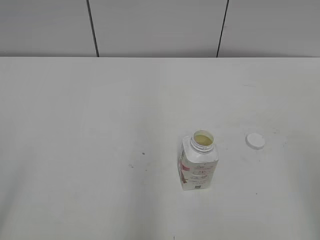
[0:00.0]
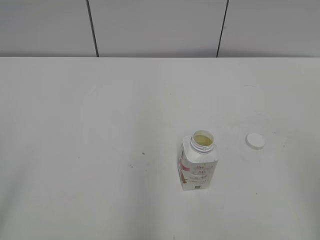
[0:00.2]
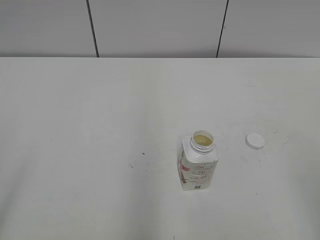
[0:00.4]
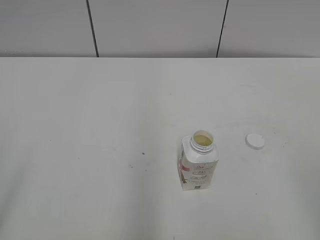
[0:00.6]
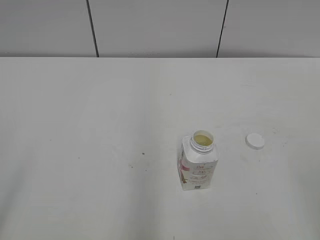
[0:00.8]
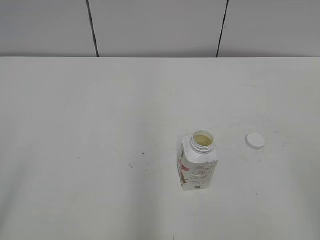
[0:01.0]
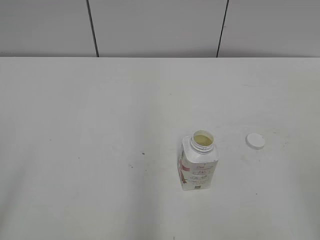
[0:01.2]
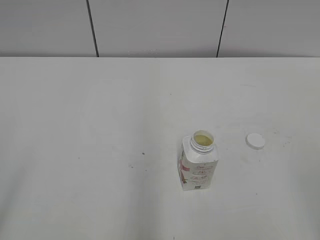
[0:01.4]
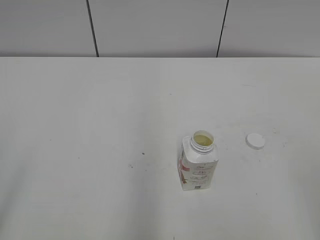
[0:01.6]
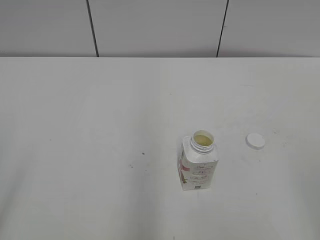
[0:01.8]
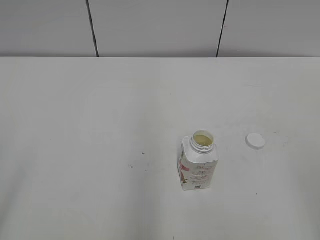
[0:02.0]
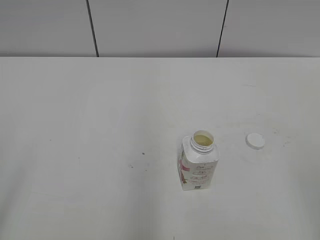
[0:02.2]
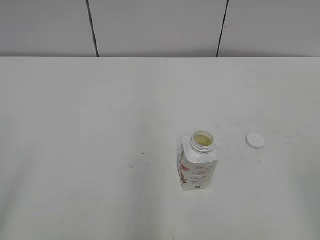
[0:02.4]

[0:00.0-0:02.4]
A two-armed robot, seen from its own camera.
0:01.2 to 0:02.4: Both grippers stay about where they are.

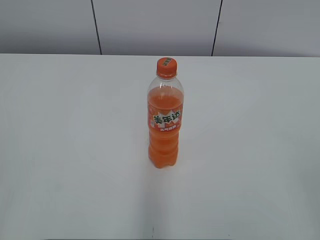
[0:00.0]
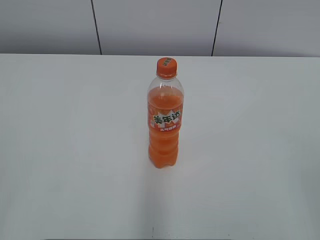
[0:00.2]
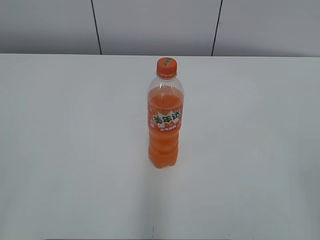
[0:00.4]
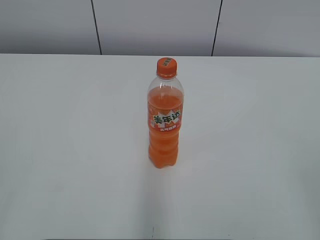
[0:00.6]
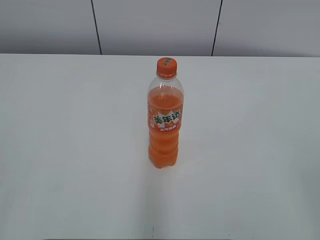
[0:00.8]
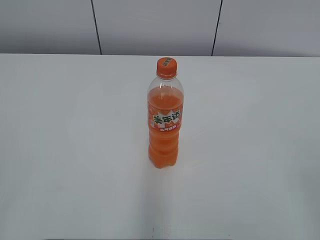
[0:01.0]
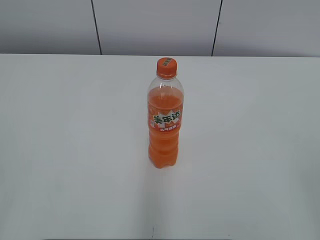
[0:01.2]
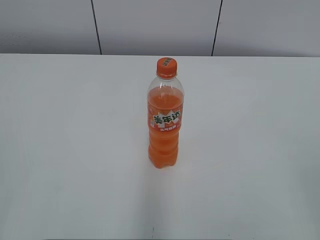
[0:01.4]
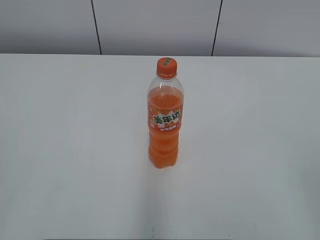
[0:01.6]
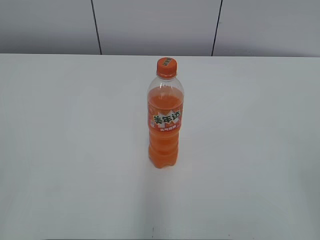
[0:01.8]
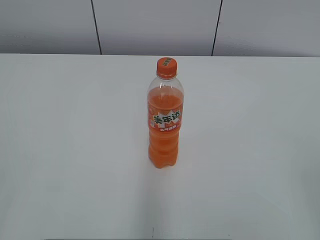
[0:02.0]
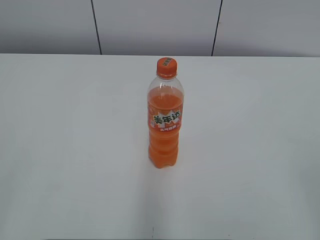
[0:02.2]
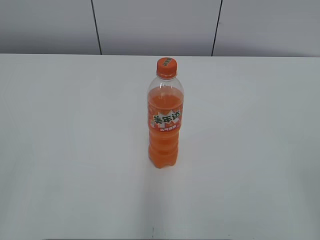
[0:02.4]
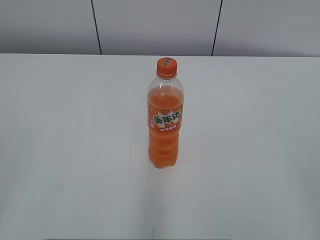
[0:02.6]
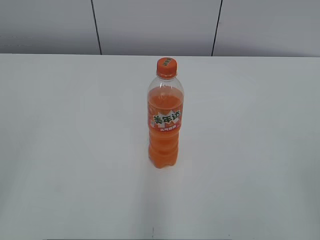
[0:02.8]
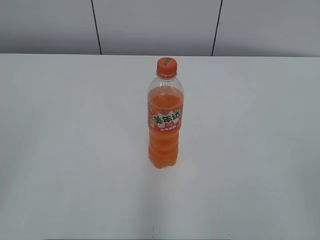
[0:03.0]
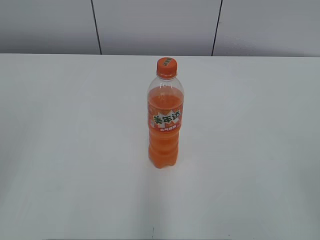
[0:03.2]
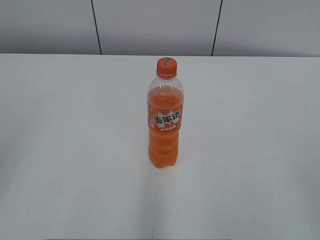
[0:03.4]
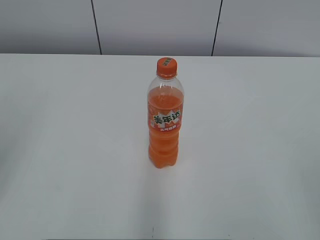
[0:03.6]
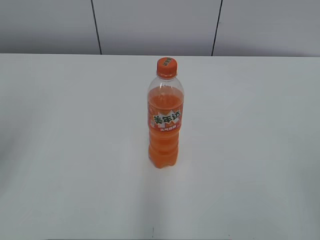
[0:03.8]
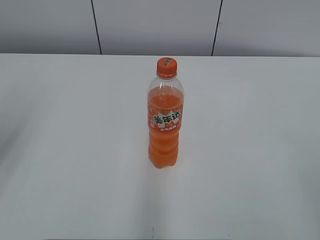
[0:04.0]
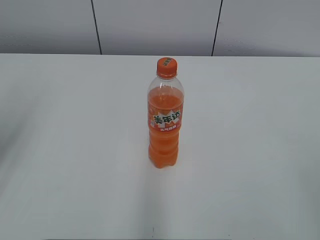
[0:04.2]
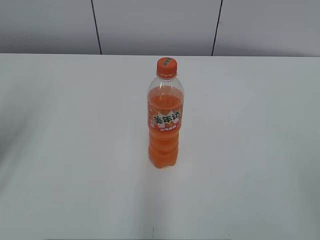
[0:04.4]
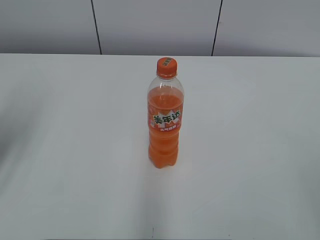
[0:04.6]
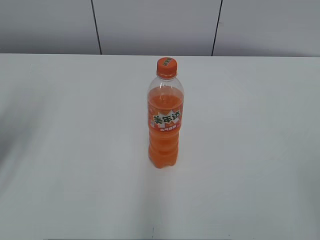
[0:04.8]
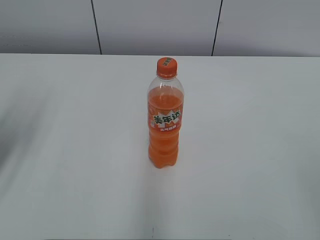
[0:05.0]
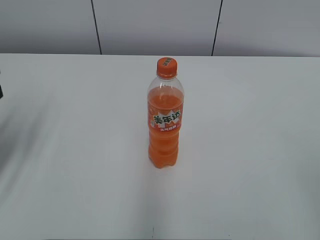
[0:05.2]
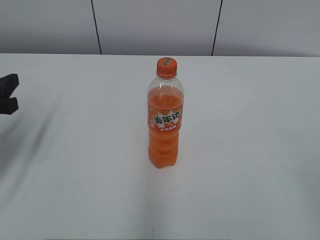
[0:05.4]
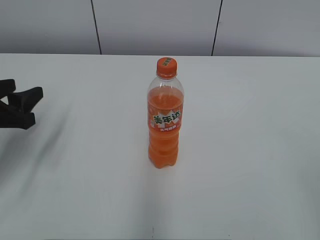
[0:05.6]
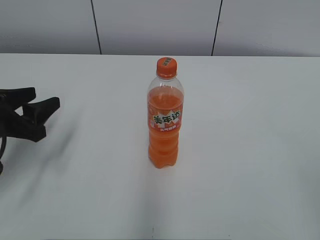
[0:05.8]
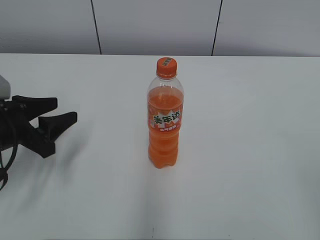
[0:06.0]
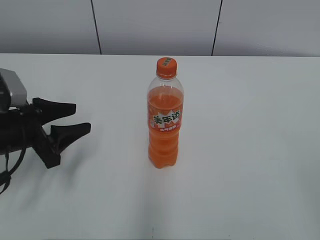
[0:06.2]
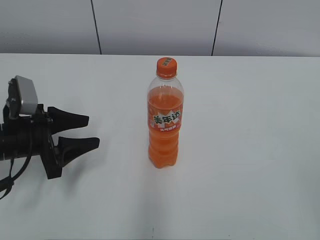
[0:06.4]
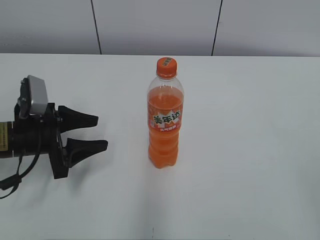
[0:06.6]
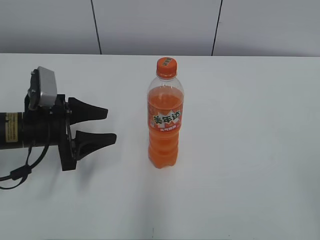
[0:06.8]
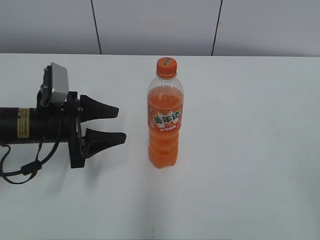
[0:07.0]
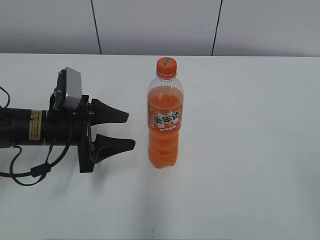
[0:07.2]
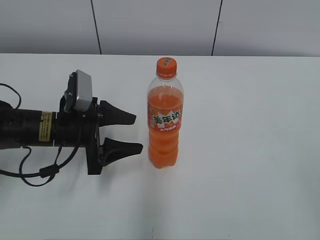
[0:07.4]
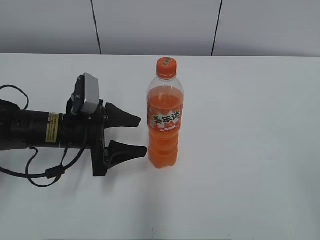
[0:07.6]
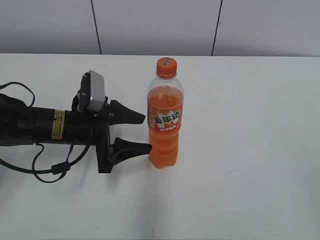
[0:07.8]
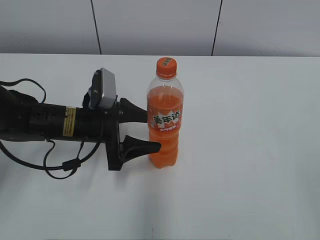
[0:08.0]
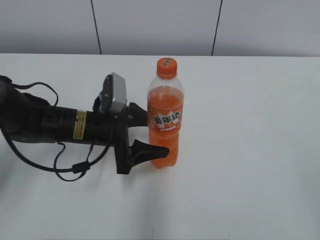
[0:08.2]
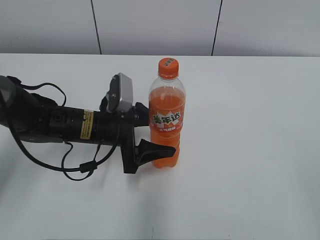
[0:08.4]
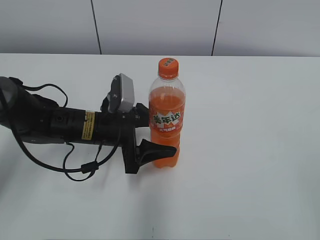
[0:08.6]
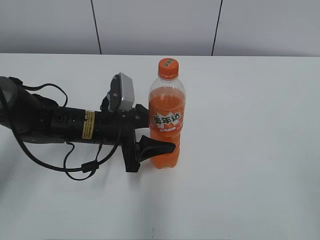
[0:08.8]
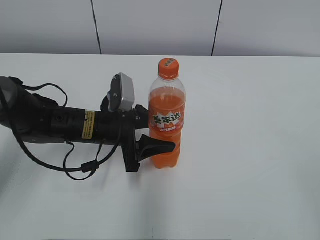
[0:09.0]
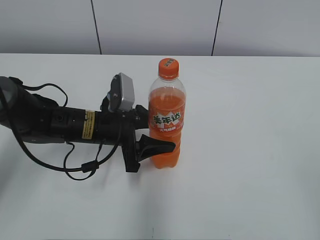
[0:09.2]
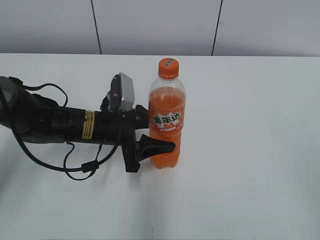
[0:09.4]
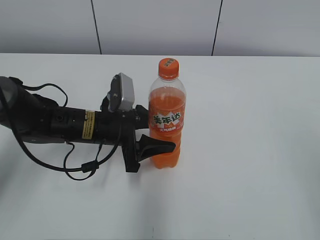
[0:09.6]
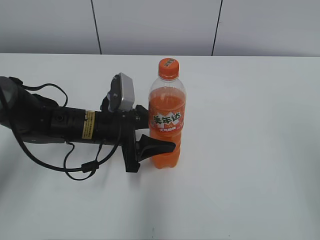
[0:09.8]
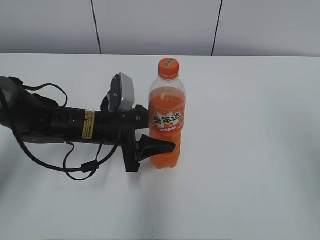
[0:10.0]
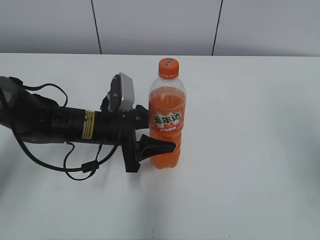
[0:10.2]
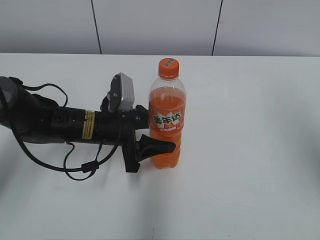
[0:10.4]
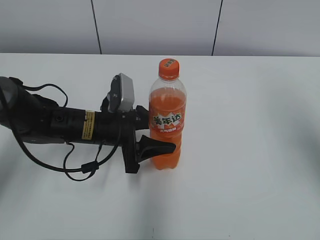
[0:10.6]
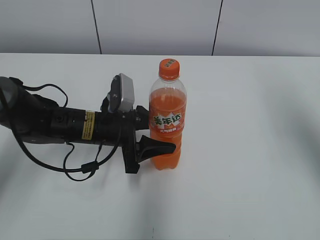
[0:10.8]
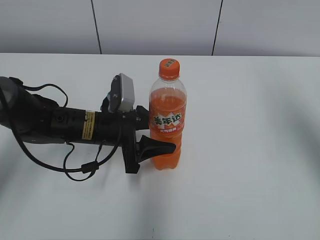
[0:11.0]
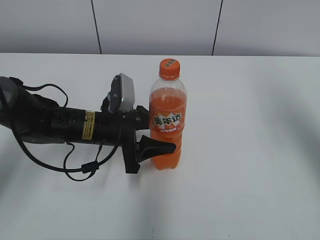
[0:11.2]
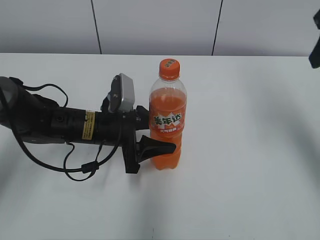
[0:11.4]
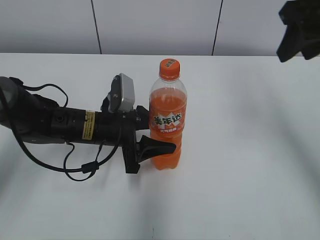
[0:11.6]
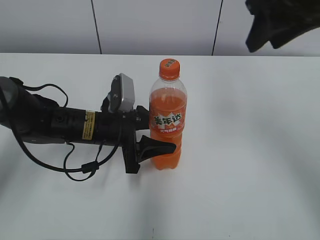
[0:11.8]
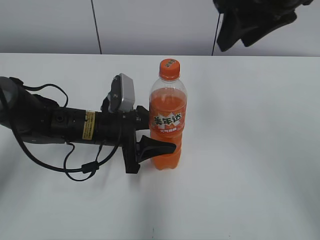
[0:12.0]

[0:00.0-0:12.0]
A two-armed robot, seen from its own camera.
Step, 0:00.0 to 0:09.6: Grab the Mirinda with the left hand.
0:04.4 to 0:06.0: The left gripper shifts roughly 15 cm downward.
0:06.0 to 0:07.6: The left gripper travels to the right by some 10 cm.
0:07.6 to 0:09.0: The left gripper moves to the right, about 5 cm, and closes.
0:09.0 to 0:10.4: The right gripper travels forward by roughly 20 cm.
0:10.4 to 0:12.0: The right gripper moves to the left and forward, approximately 20 cm.

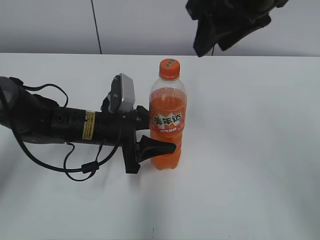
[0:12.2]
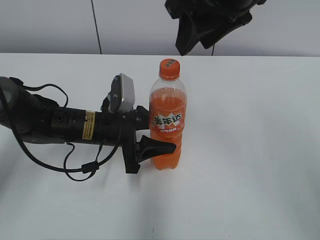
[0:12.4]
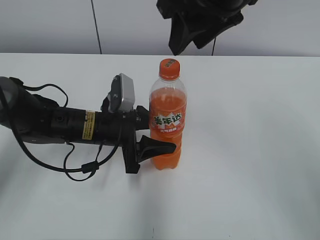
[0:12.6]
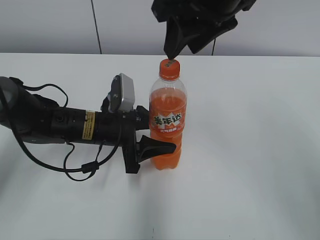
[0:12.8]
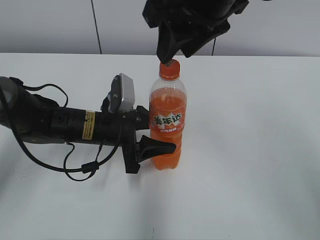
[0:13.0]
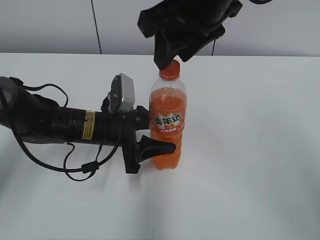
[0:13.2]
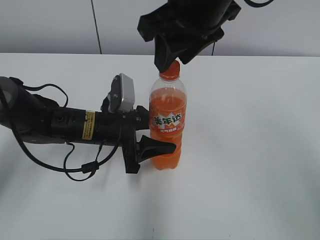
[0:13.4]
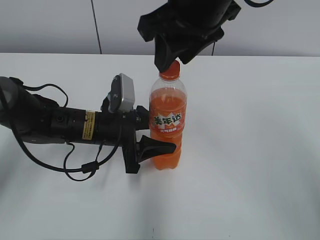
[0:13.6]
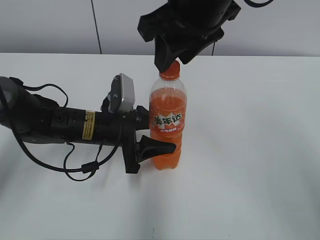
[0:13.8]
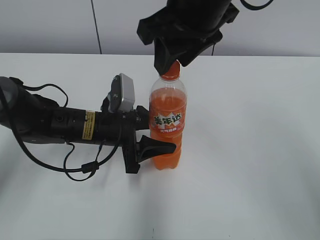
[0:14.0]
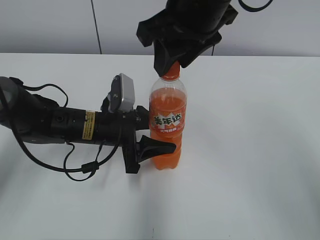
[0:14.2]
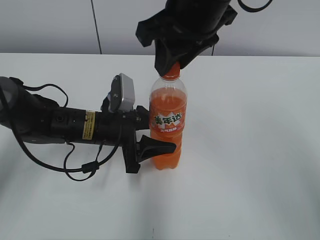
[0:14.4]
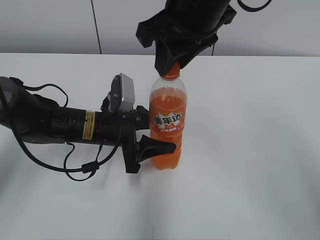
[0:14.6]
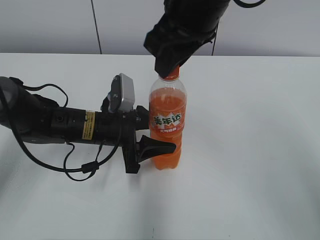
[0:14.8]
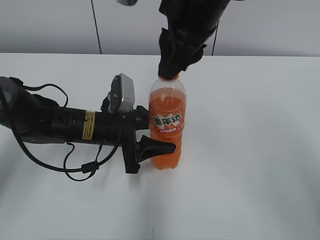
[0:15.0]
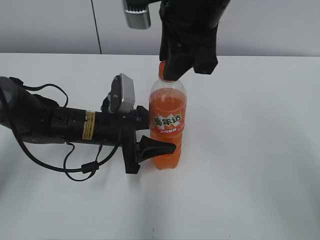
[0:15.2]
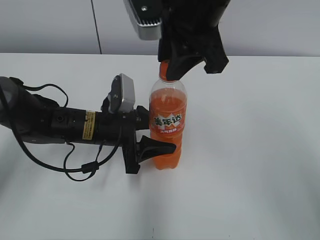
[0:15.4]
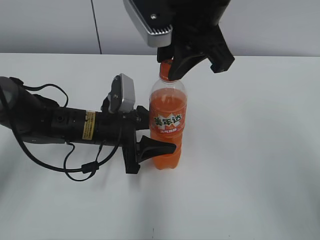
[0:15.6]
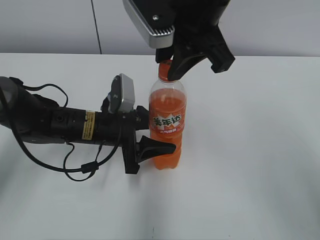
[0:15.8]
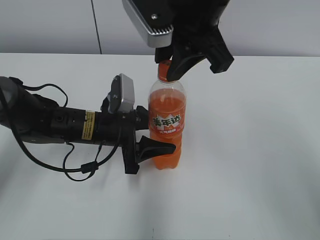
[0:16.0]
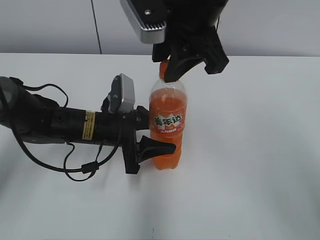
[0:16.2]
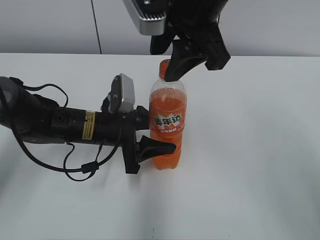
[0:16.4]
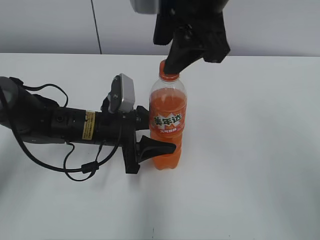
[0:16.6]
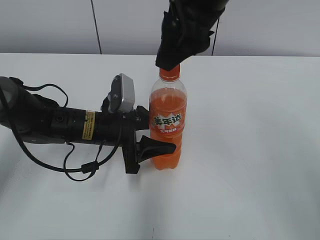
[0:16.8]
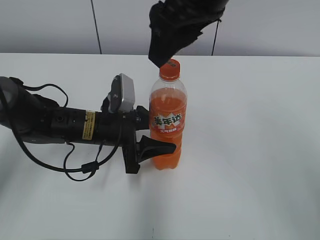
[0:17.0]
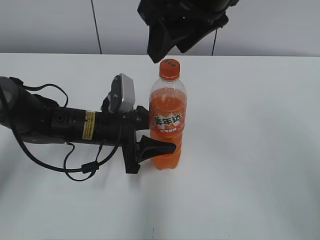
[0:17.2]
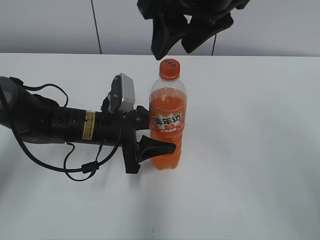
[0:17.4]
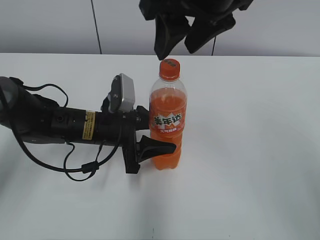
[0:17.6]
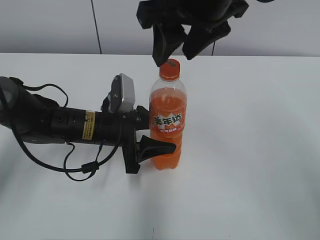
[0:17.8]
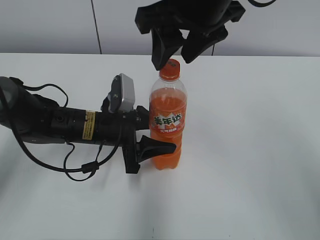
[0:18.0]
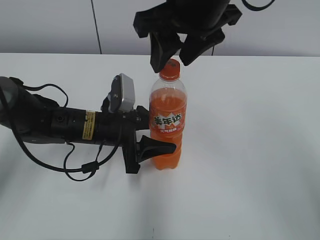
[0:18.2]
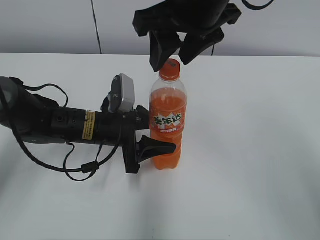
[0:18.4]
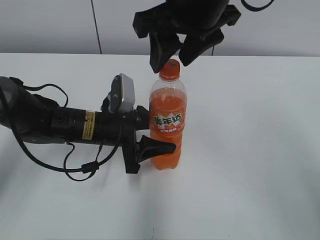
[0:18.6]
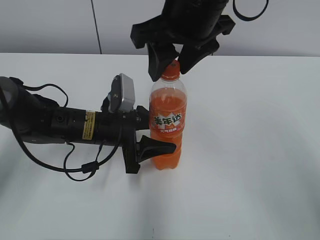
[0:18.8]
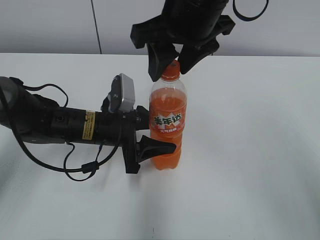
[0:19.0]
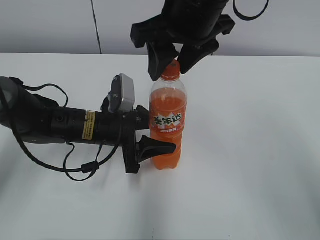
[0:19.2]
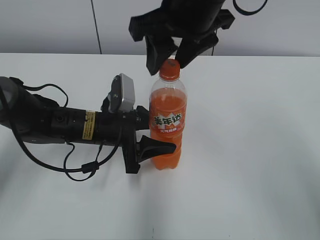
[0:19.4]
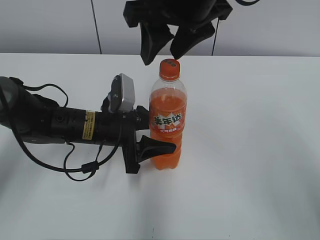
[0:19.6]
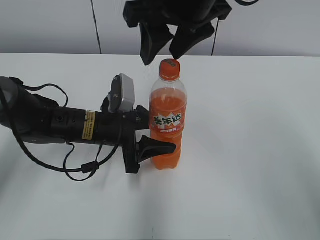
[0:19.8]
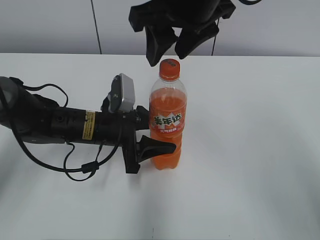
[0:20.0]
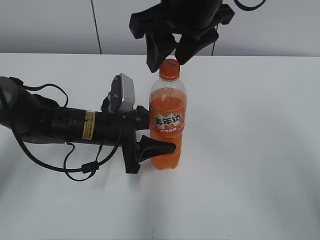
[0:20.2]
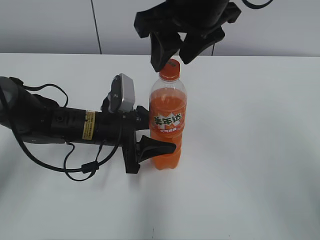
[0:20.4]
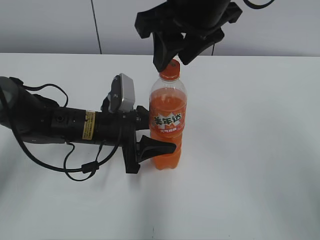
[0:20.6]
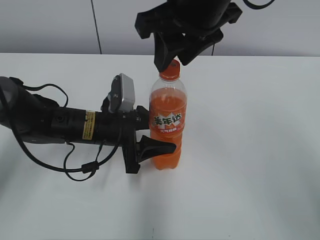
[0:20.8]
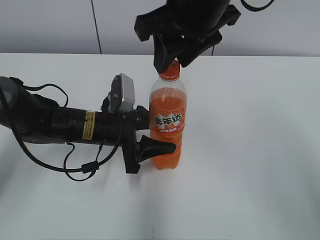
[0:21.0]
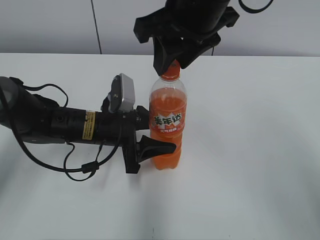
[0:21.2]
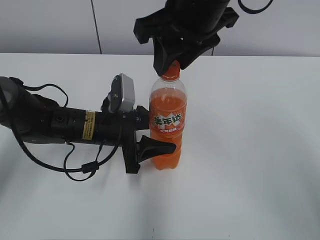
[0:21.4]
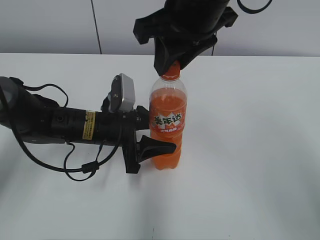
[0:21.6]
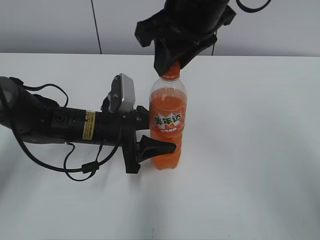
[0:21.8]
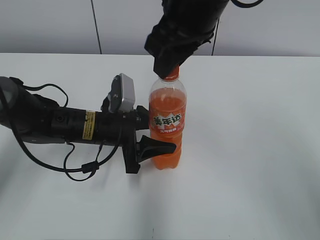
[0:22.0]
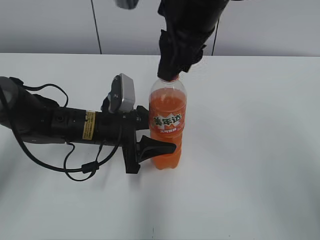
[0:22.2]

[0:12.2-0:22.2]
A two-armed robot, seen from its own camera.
0:12.2 to 0:13.6: The right gripper travels to the left by approximately 5 cm.
0:15.0 to 0:16.4: The right gripper opens.
0:18.0 to 0:20.8: The grippers make only small movements.
